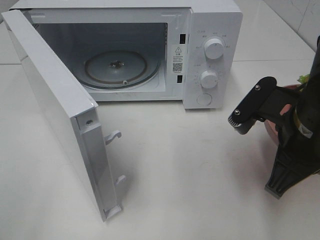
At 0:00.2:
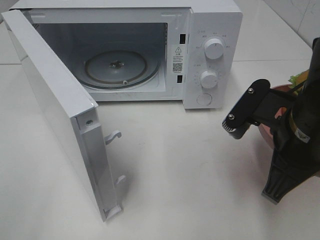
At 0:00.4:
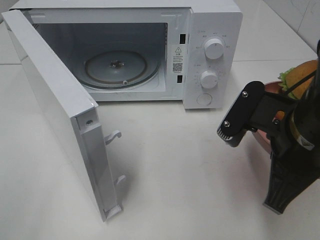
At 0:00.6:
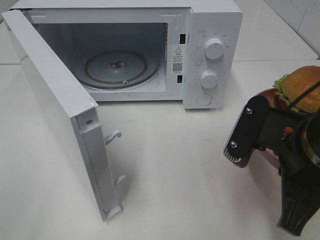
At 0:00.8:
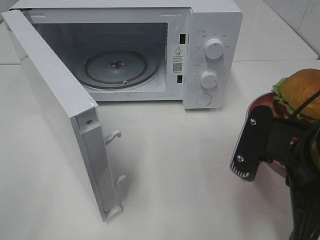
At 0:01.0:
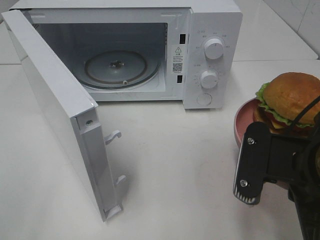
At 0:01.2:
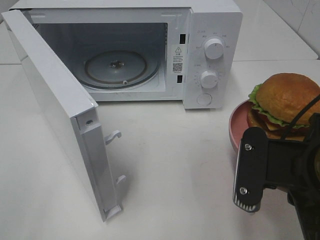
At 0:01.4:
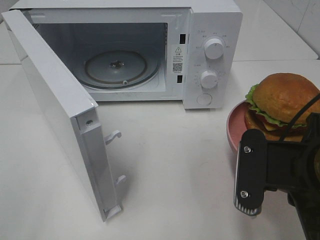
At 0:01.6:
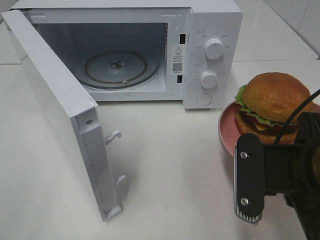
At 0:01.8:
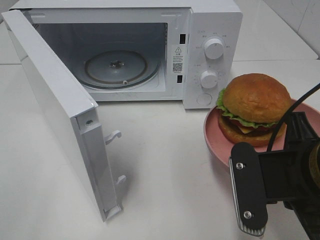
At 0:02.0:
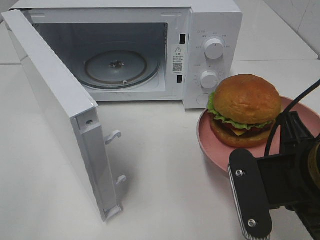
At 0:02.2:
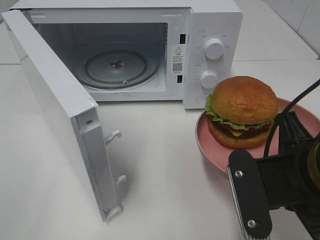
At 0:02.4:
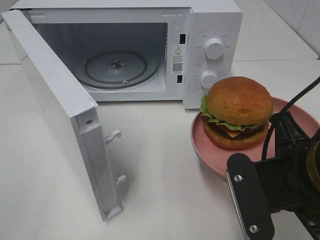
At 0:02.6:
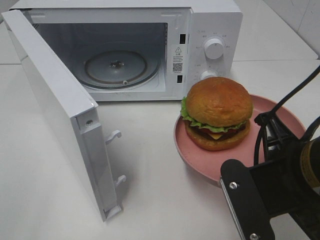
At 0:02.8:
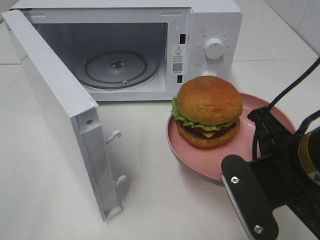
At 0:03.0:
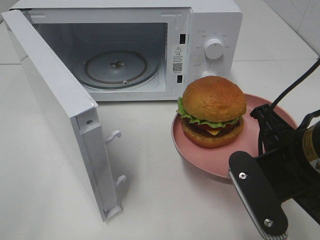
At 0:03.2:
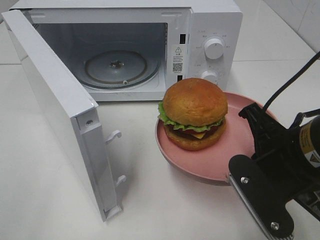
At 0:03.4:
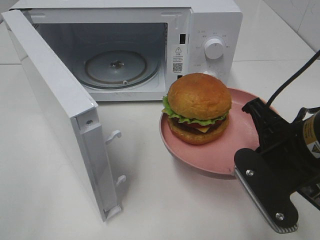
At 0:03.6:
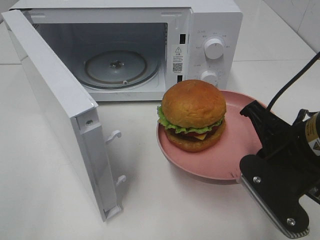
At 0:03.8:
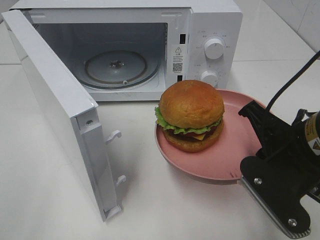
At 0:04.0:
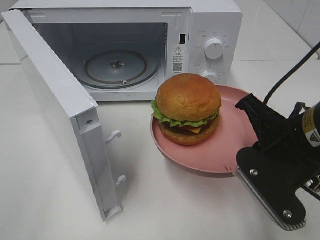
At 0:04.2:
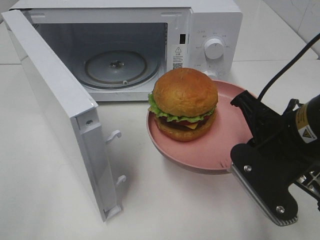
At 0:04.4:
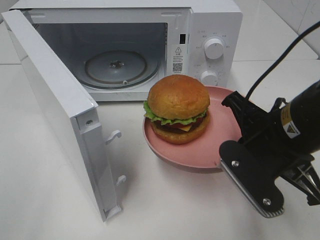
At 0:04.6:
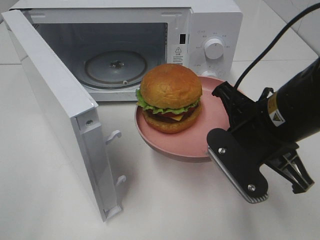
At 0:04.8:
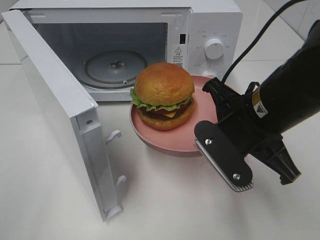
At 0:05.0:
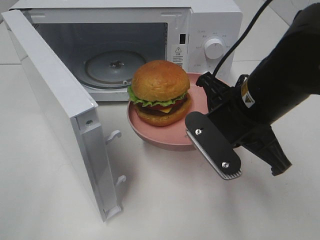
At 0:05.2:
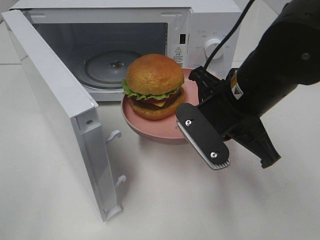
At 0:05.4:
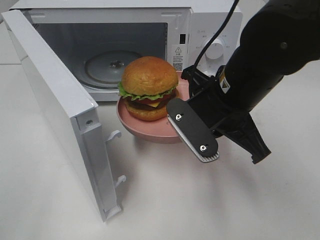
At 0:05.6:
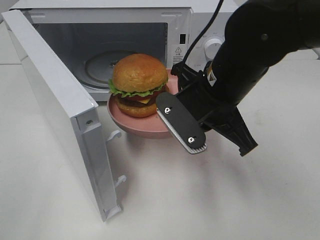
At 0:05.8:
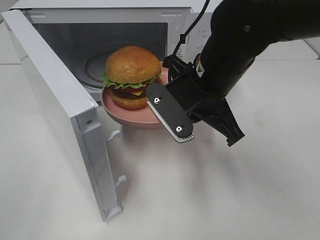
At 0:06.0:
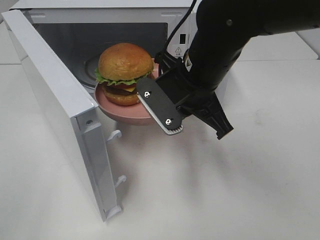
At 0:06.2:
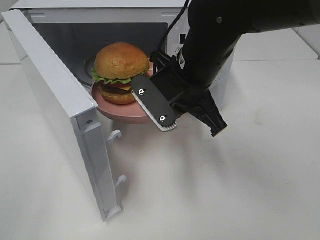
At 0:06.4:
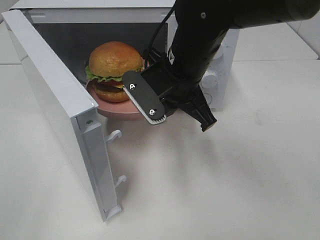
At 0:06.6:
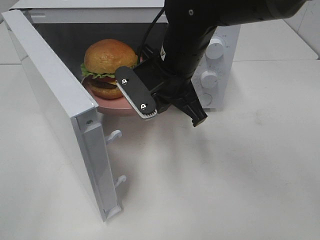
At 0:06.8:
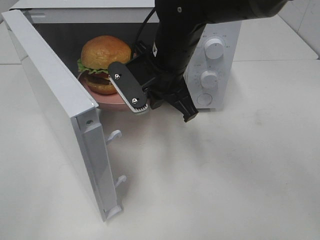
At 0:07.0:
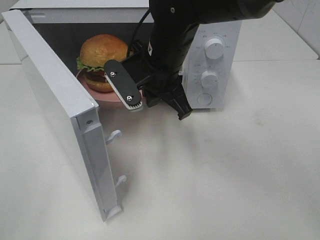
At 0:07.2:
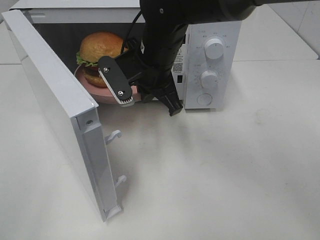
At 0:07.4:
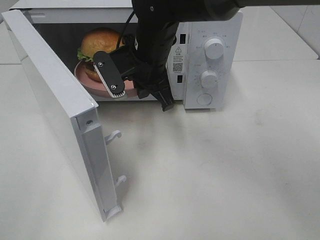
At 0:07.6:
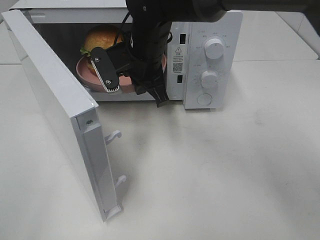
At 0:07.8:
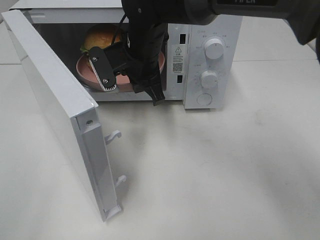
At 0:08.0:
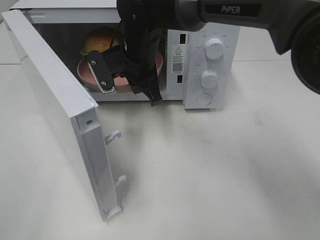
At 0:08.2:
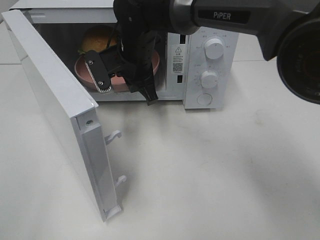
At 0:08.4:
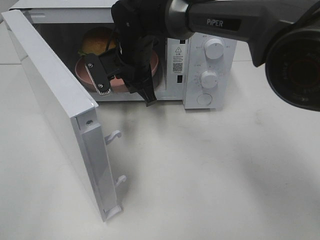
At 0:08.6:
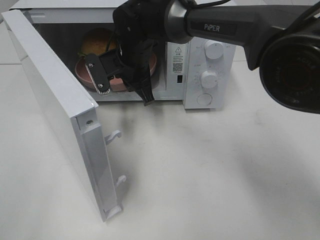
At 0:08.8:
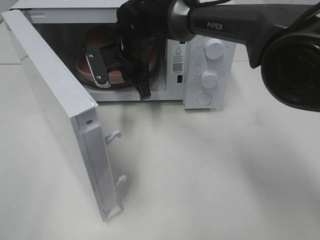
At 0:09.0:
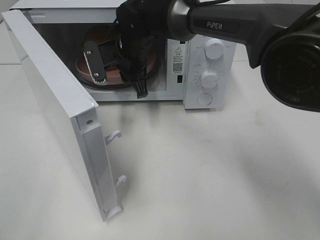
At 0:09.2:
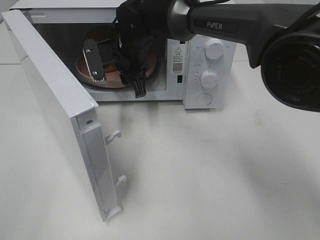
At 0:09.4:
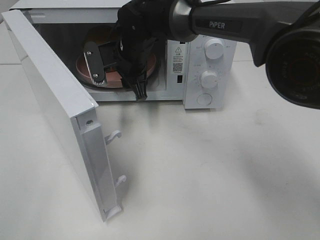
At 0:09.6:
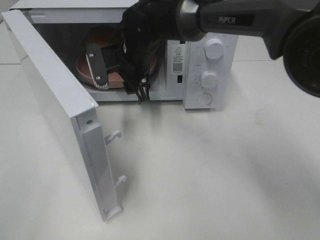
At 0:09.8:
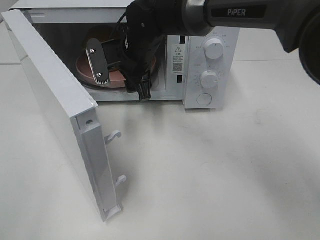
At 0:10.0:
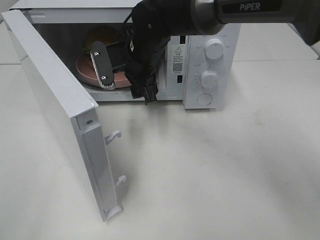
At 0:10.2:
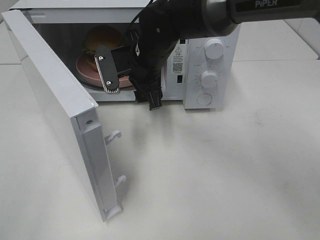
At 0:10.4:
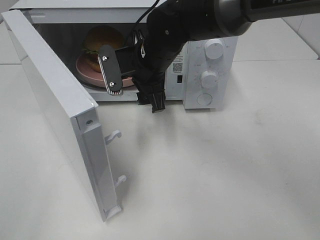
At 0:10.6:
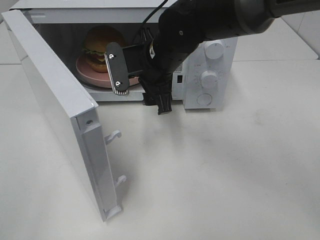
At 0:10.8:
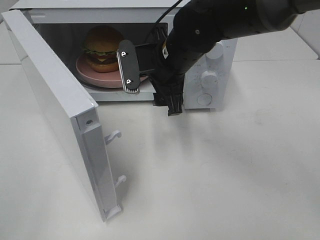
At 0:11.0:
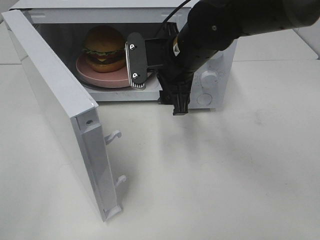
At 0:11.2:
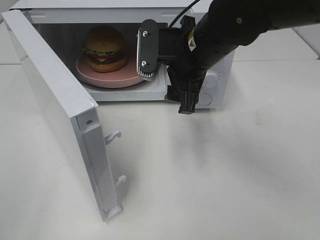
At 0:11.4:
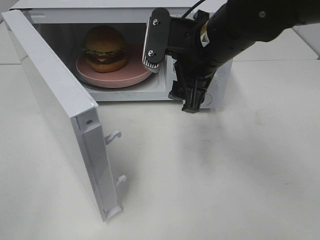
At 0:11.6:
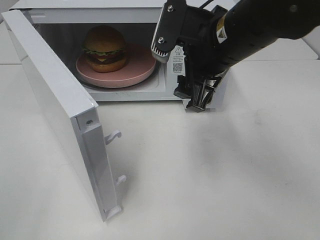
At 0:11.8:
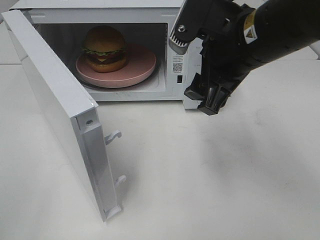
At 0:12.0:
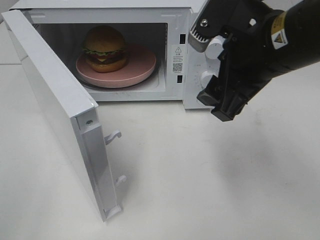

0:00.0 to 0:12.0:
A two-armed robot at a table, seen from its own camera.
Task of the whole recording: Heat the burger.
Step, 0:00.0 to 0:10.2: Right hand: place the plate in the microwave.
0:00.0 to 0:01.6: The right gripper shifts about 5 cm backward.
0:03.0 to 0:04.4: The grippers move only a little.
0:04.4 to 0:06.0: The right gripper is displaced forward and to the left by about 15 cm.
0:06.0 to 0:07.6: The right gripper travels forward and to the left by about 10 cm.
0:07.6 to 0:09.0: The right gripper heads forward, covering approximately 5 cm, and opens.
0:09.0 to 0:10.4: The right gripper is displaced backward by some 5 cm, and opens.
0:10.4 to 0:12.0: The right gripper is displaced backward, to the right and upward by about 20 cm.

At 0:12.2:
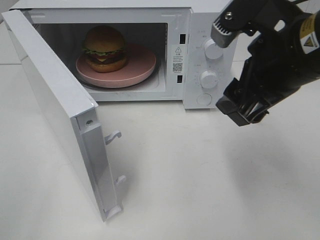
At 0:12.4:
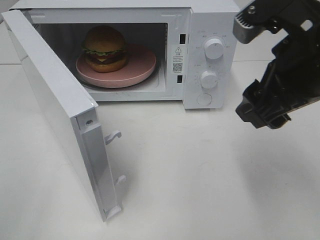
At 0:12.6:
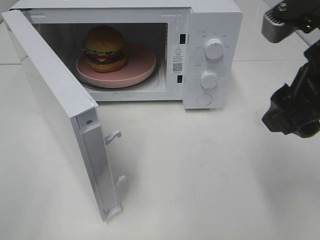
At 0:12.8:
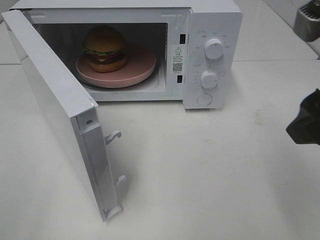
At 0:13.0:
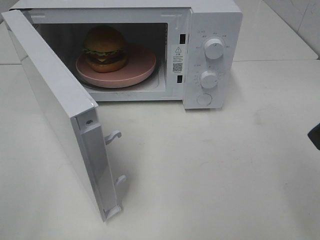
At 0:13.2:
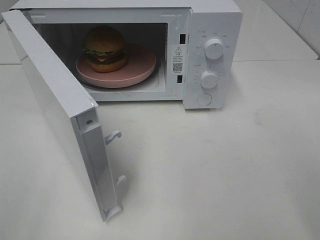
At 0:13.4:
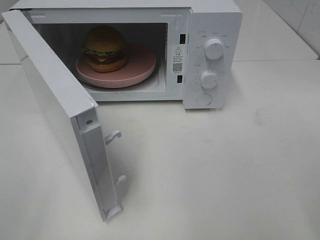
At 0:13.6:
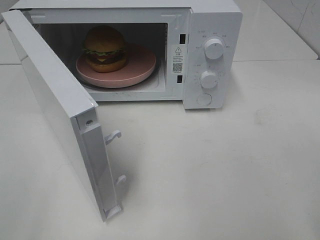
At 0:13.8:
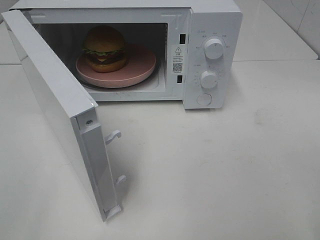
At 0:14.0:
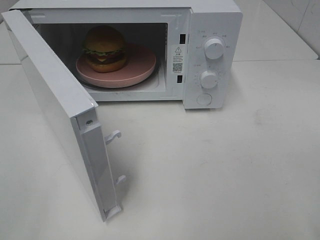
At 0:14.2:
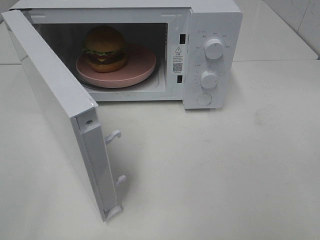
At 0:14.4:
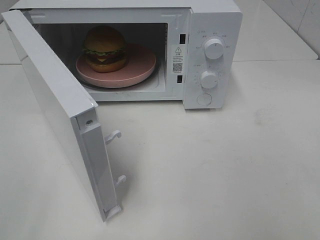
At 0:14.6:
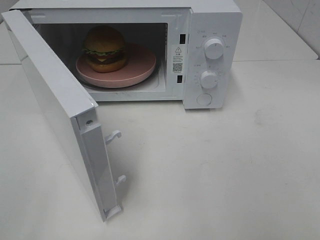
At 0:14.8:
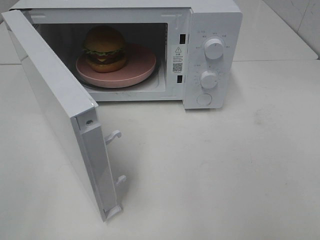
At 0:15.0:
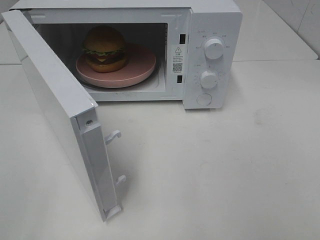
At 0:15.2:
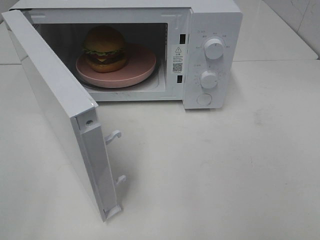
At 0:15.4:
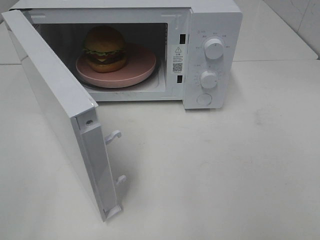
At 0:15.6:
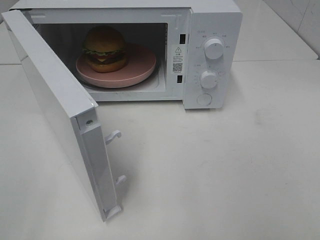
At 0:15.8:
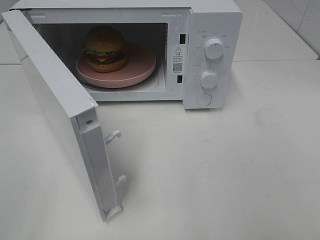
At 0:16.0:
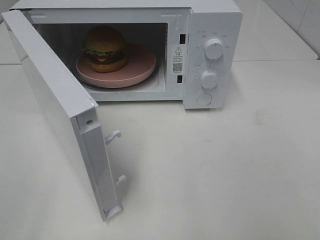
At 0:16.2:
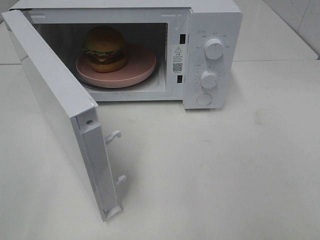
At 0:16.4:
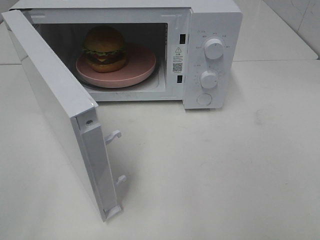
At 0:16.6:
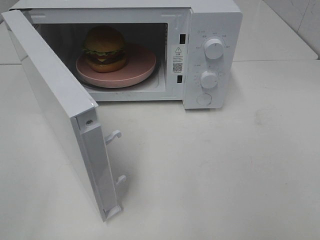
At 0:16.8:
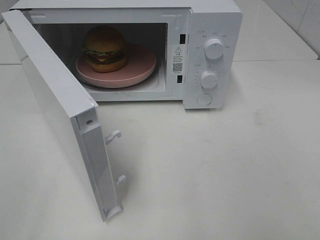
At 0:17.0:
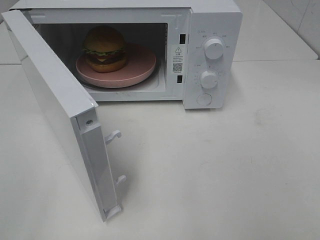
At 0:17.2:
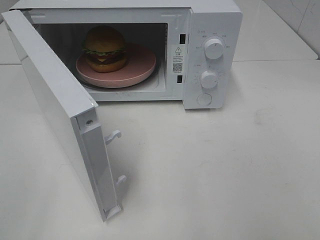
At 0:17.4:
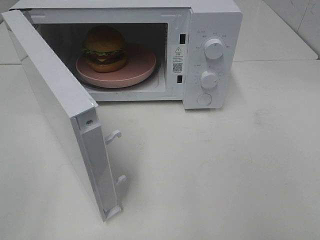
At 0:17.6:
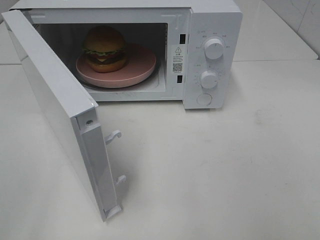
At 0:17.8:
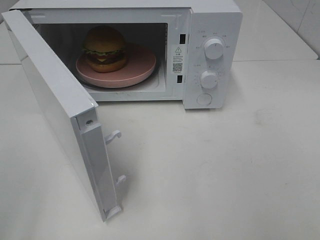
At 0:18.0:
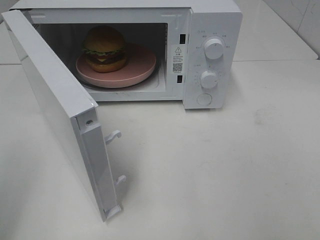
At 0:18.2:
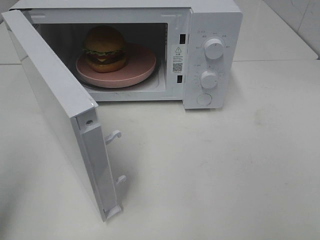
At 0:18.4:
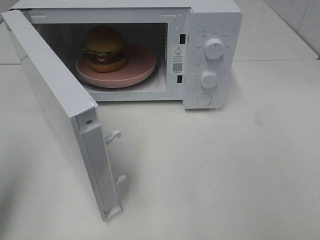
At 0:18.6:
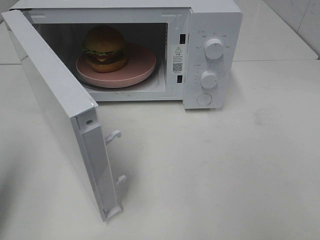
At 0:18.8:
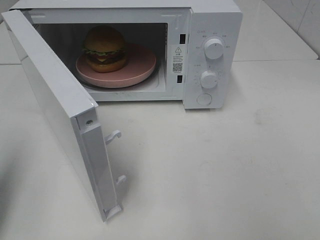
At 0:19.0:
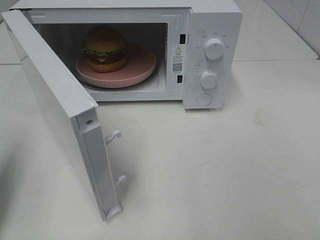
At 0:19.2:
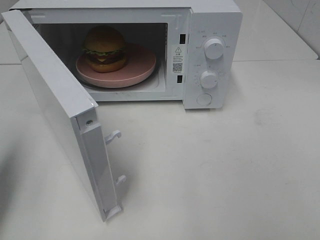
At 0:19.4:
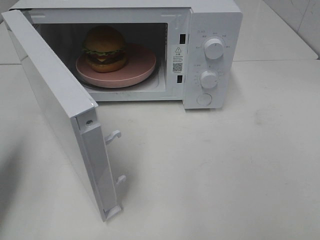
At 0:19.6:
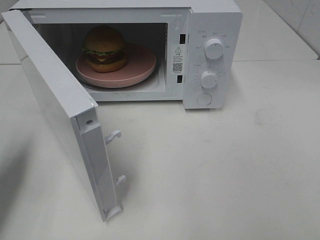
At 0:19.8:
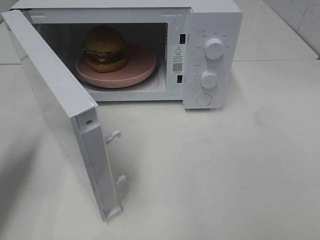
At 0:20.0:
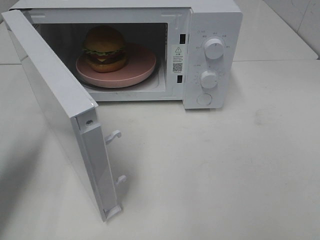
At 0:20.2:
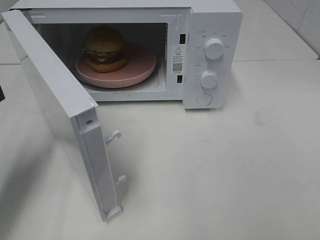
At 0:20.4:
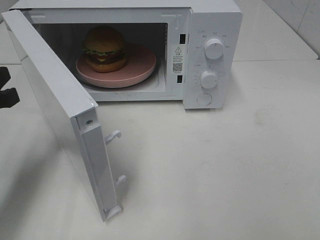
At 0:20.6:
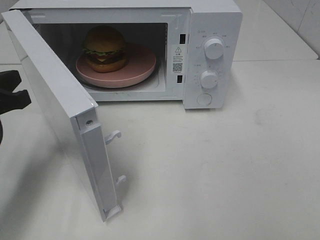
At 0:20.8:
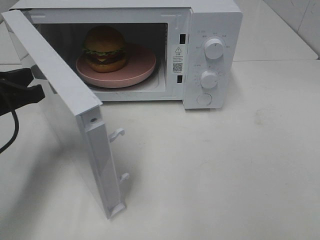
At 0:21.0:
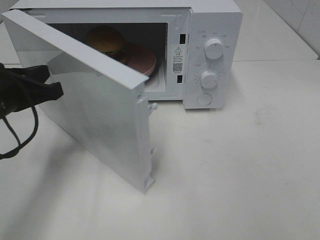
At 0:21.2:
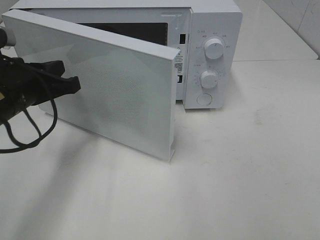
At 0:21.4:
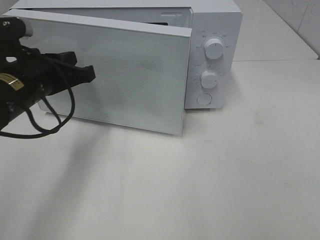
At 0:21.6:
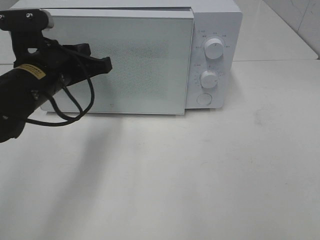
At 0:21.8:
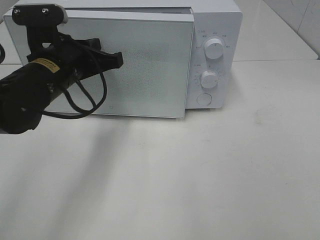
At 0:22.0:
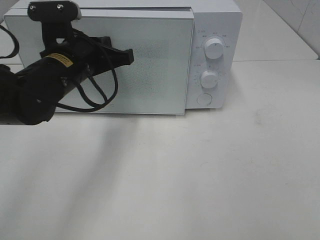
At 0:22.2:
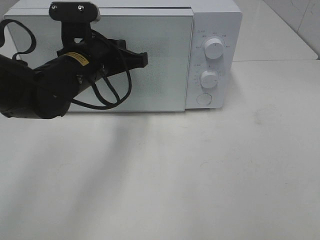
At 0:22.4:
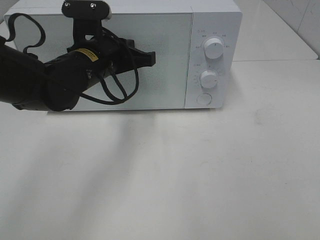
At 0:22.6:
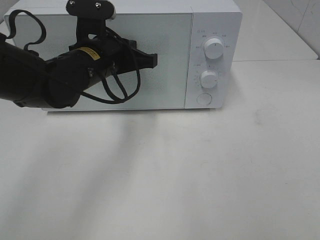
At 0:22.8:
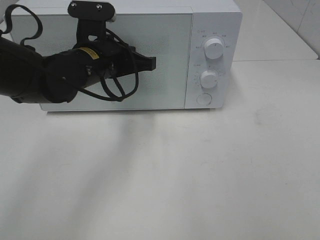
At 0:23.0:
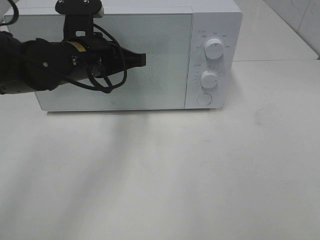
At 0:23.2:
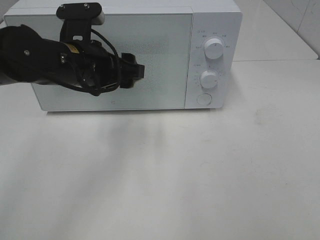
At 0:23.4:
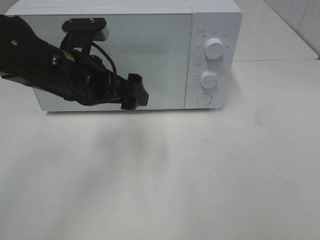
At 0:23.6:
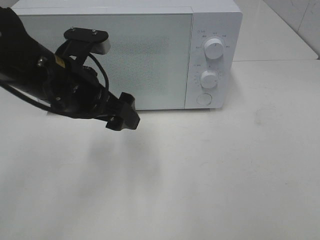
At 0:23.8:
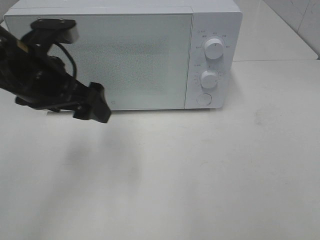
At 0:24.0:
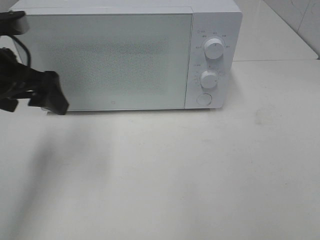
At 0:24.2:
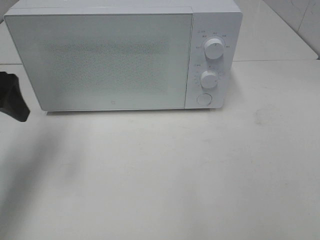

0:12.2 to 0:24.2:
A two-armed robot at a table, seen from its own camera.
Task of the whole recording: Heat the burger.
Step, 0:12.2 to 0:23.2: Left hand: close the microwave door.
0:12.2 to 0:13.8: The right gripper is displaced backward and to the right by about 15 cm.
0:15.2 to 0:16.6: Neither gripper changes place.
0:16.6 to 0:18.2: The left gripper moves forward, some 10 cm, and closes.
0:18.2 to 0:19.8: The left gripper heads forward and downward, covering roughly 15 cm.
0:19.8 to 0:21.2: The left gripper heads to the right and forward, covering approximately 10 cm.
0:21.2 to 0:22.6: The left gripper goes roughly 15 cm to the right and forward.
0:22.6 to 0:24.2: The left gripper is displaced to the left by roughly 20 cm, and opens.
